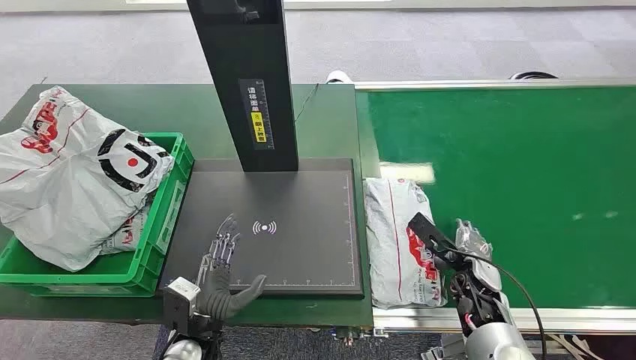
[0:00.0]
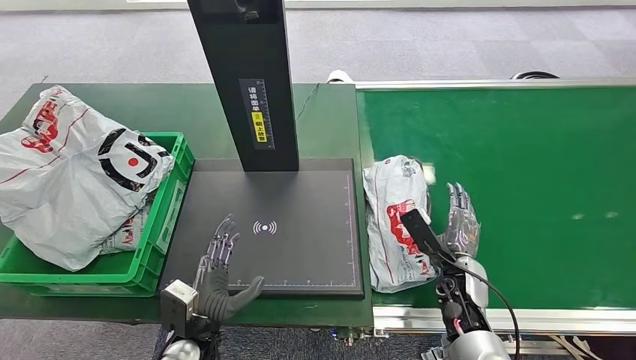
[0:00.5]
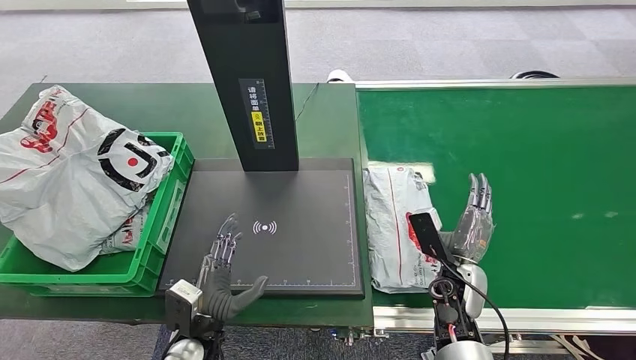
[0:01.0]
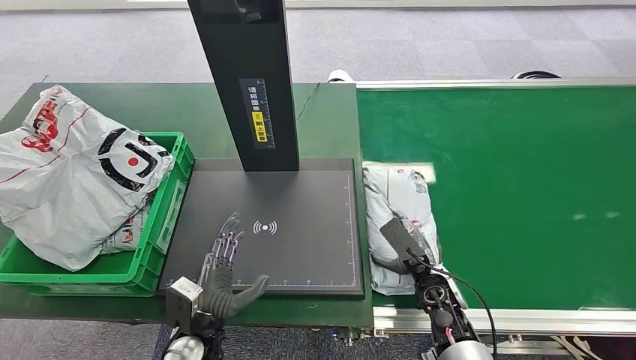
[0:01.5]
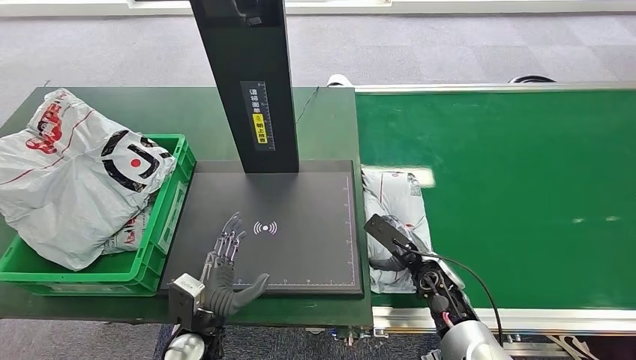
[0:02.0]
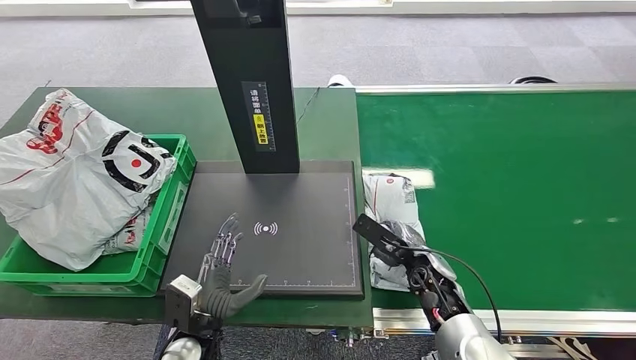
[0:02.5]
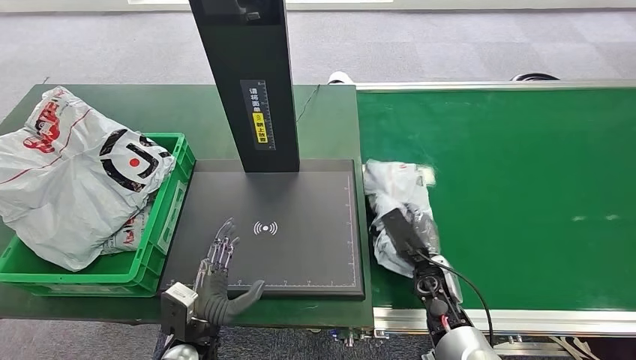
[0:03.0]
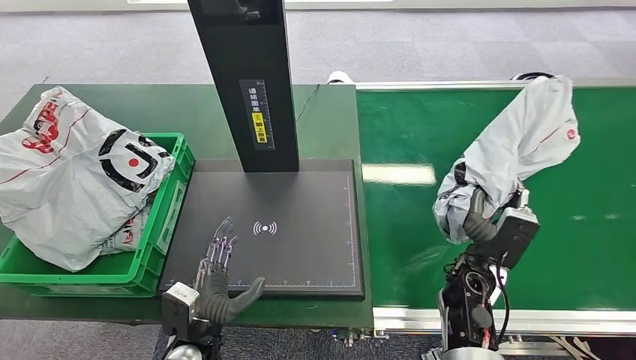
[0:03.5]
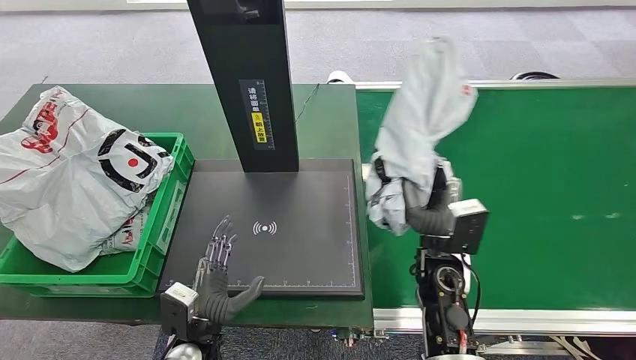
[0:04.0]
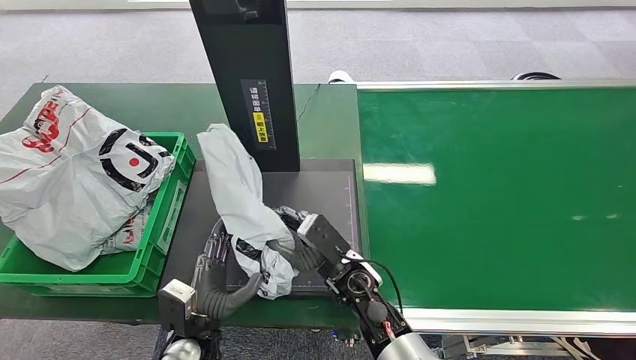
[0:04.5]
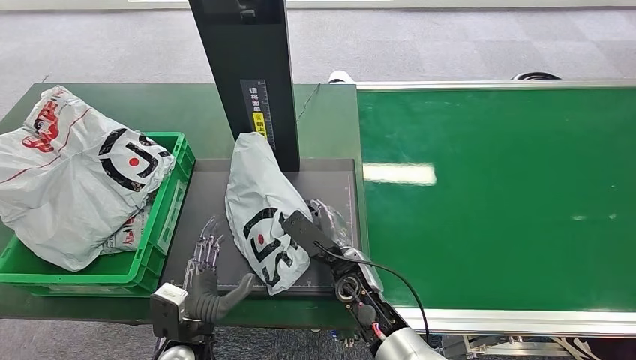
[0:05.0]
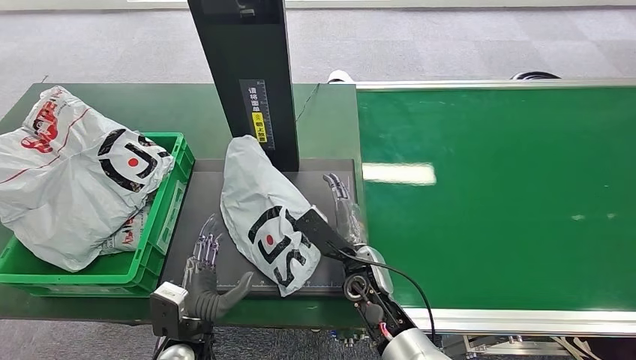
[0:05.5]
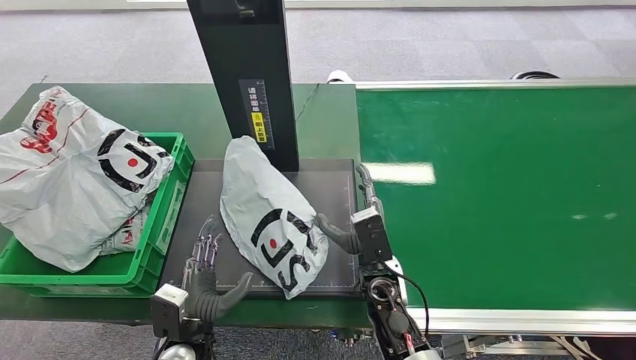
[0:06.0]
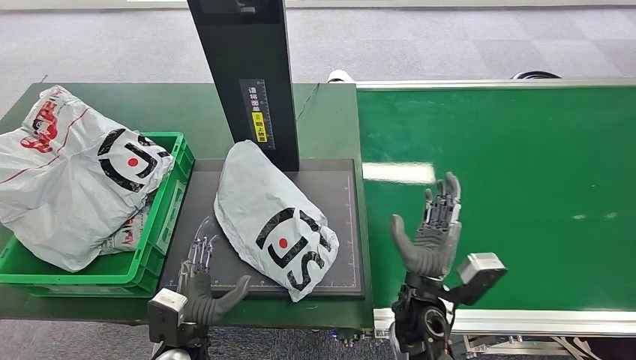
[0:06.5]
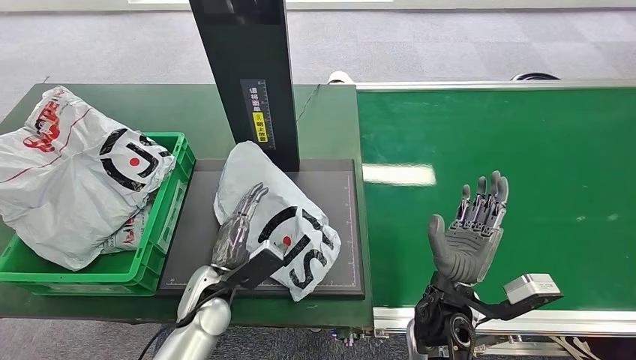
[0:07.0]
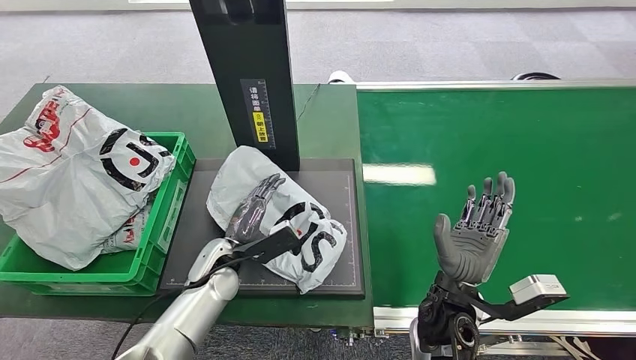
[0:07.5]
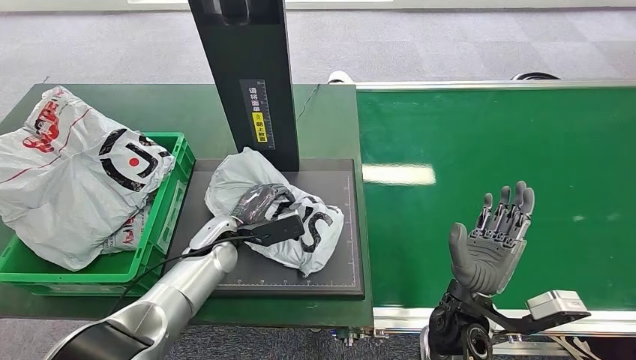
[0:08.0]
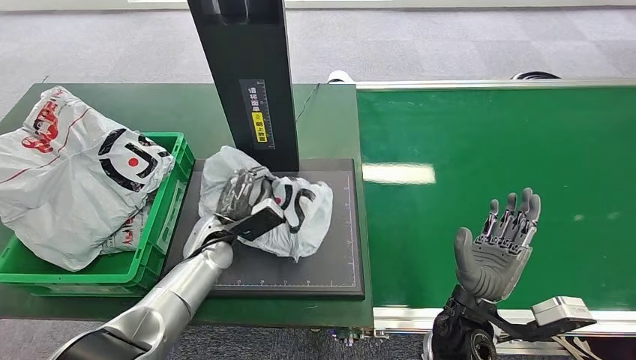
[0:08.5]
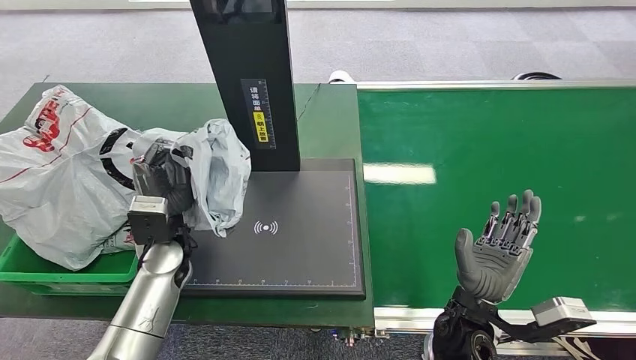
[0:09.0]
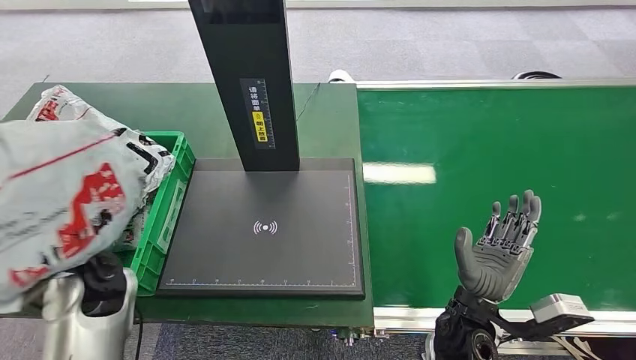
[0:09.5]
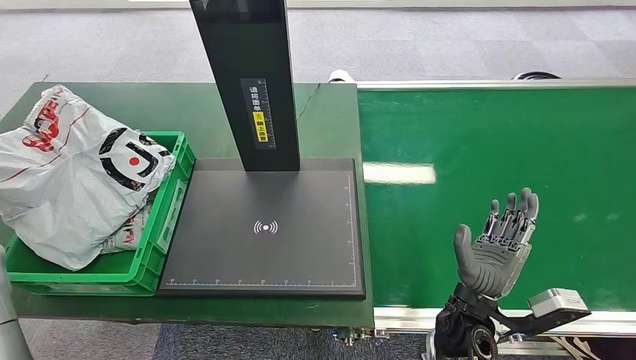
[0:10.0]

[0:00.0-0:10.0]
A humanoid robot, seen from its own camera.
Step, 0:00.0 to 0:03.5: Pick up the package from the conveyor belt.
Step, 0:04.0 to 0:06.0: Place the package onto the inbound machine.
Step, 0:06.5 to 0:09.0: Pick up the package from the inbound machine.
0:04.0 to 0:06.0: The right hand moves to the left, some 10 cm.
0:08.0 to 0:10.0: The left hand goes roughly 35 cm to the left and upward.

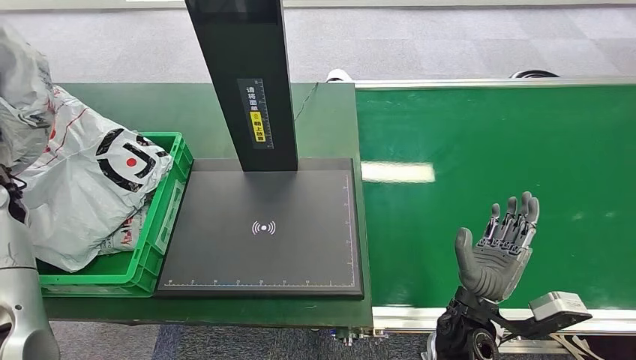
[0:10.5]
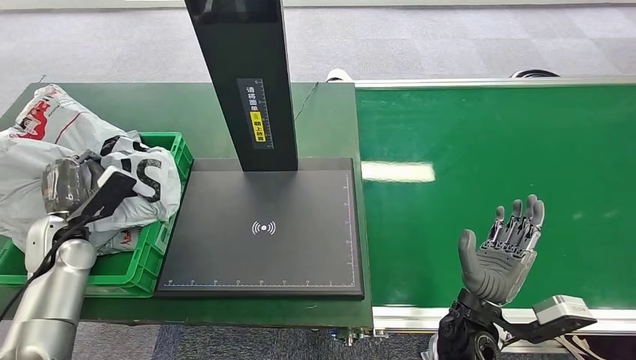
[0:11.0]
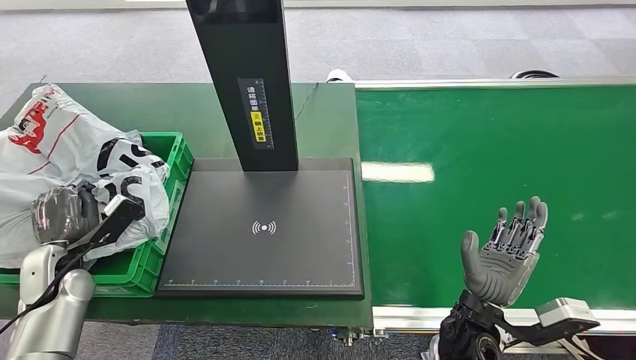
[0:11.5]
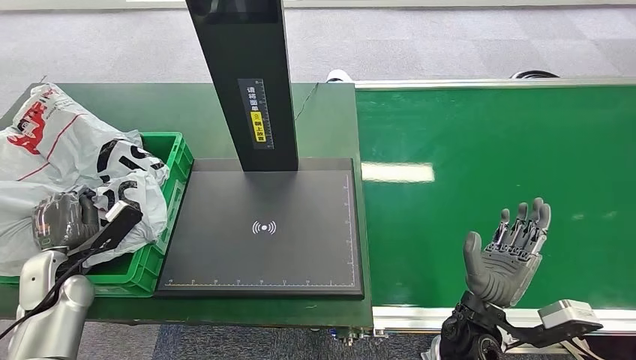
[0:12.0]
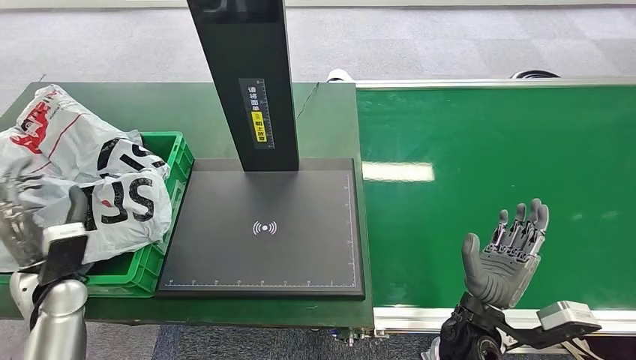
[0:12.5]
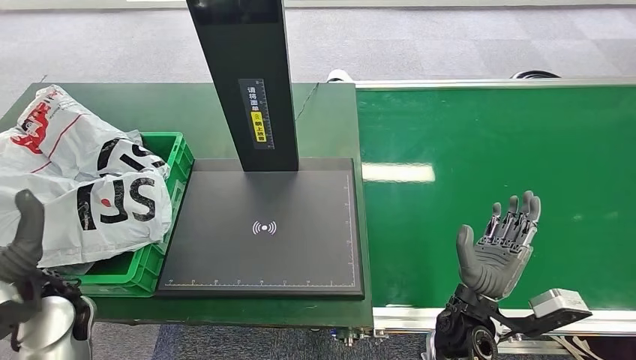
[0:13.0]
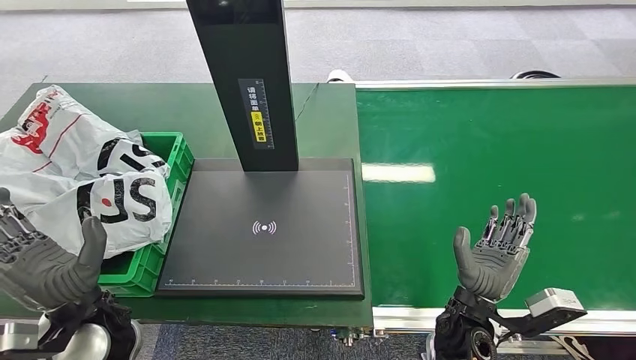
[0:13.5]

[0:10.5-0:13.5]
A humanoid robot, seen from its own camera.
Step, 0:10.5 to 0:13.5: Place the package into the parcel locker.
0:10.5 to 0:12.0: The left hand heads downward and backward, covering some 20 cm.
0:12.0 to 0:13.5: The left hand heads to the right, backward and upward, covering about 20 cm.
